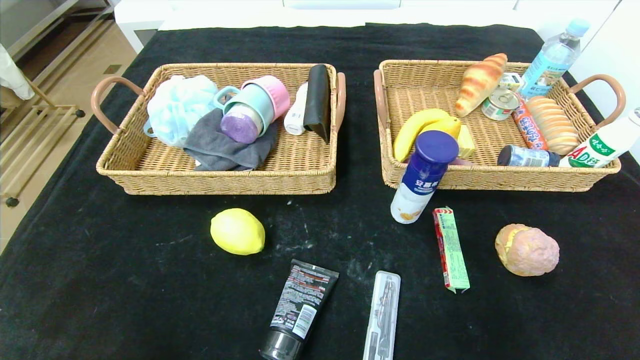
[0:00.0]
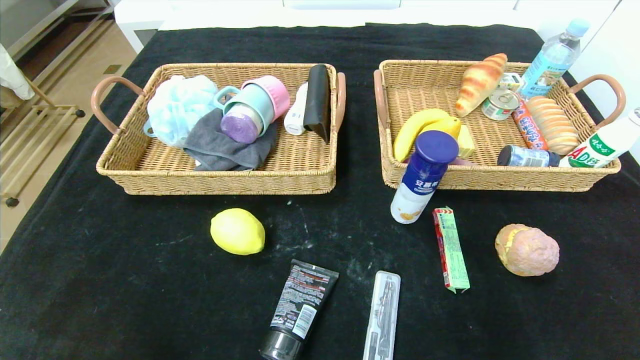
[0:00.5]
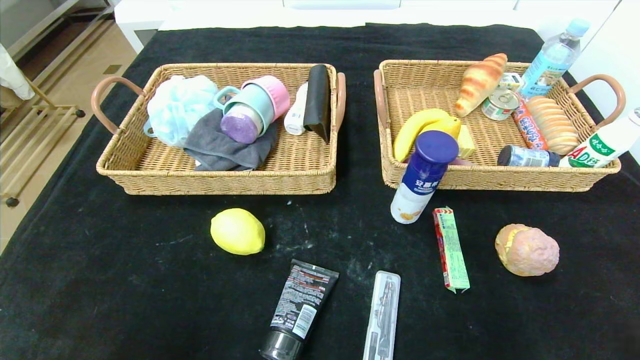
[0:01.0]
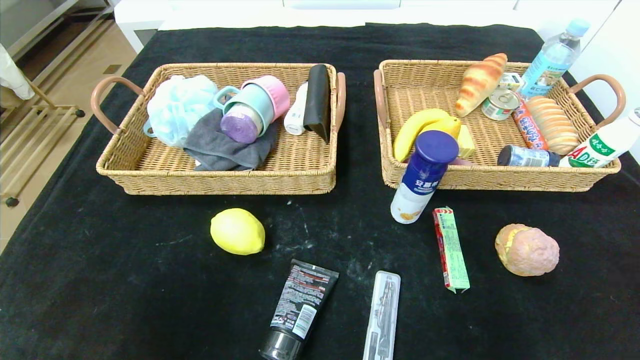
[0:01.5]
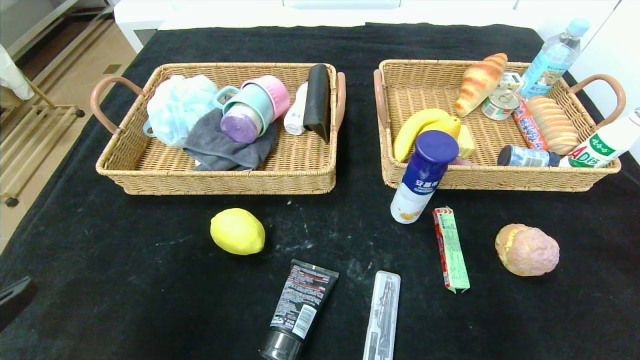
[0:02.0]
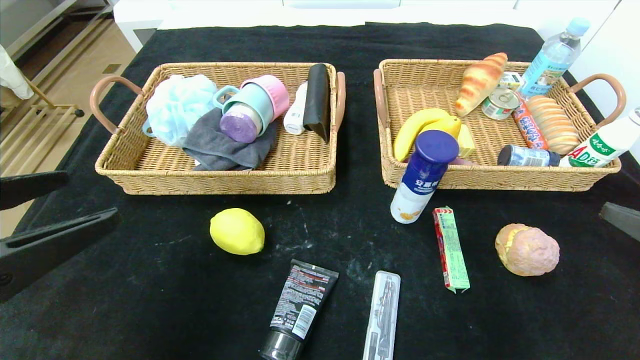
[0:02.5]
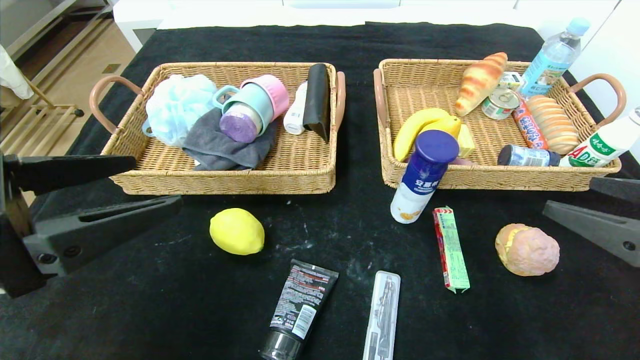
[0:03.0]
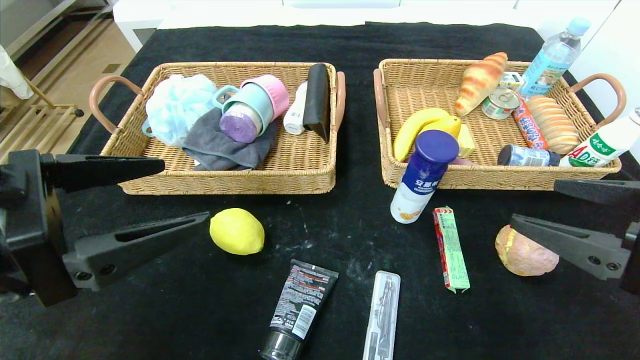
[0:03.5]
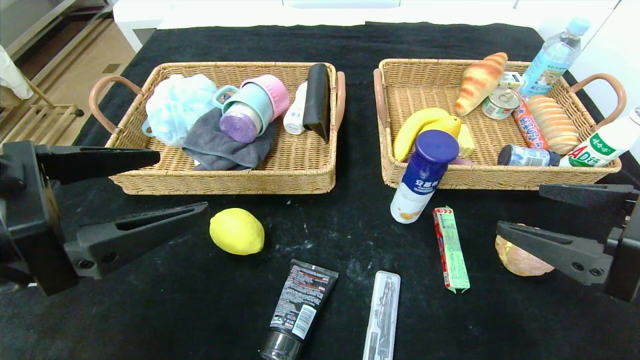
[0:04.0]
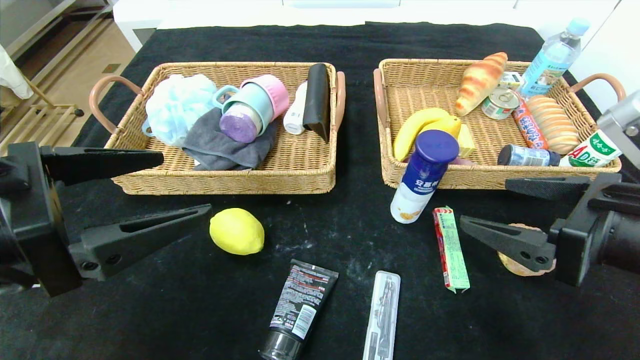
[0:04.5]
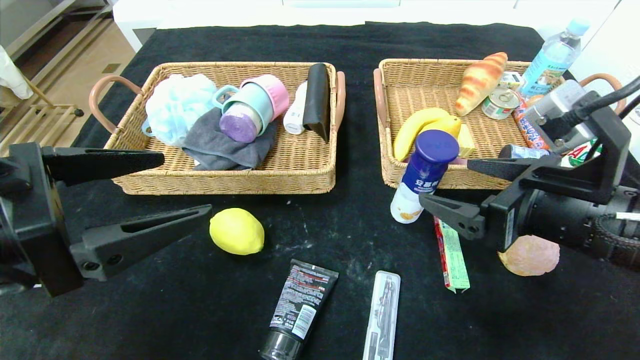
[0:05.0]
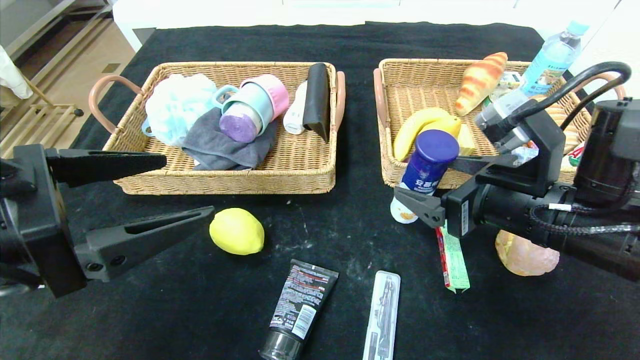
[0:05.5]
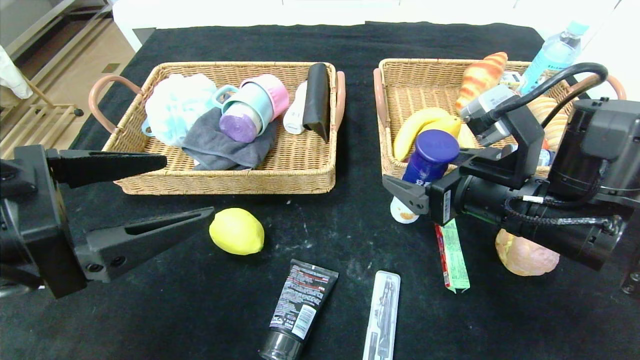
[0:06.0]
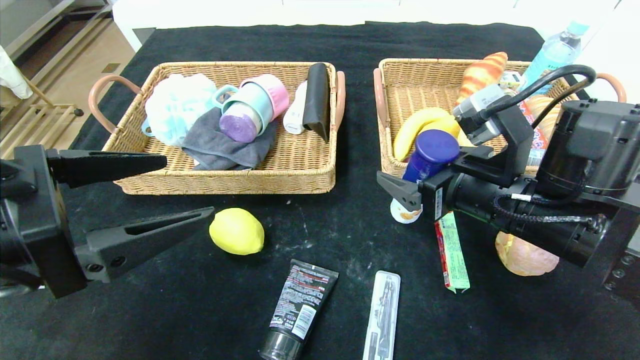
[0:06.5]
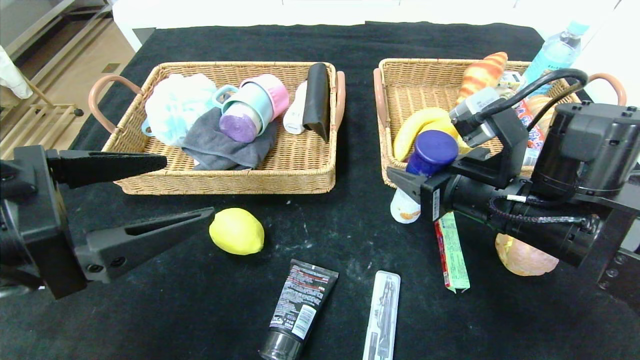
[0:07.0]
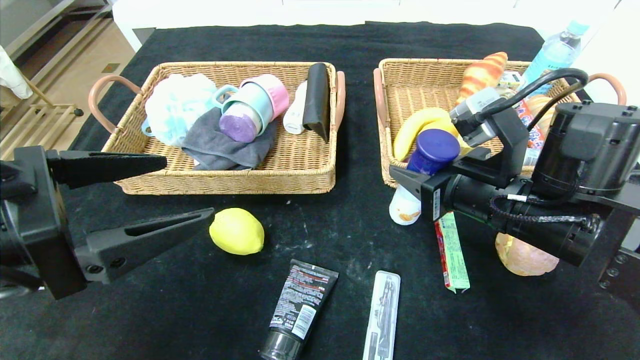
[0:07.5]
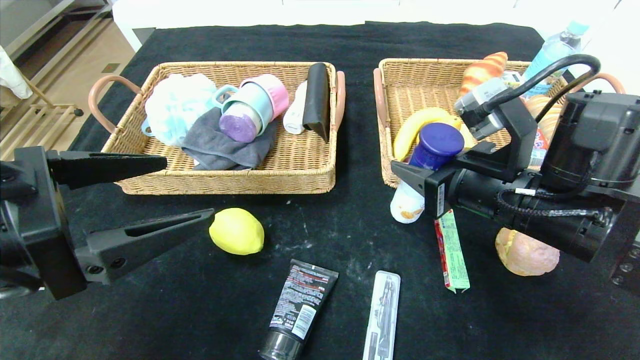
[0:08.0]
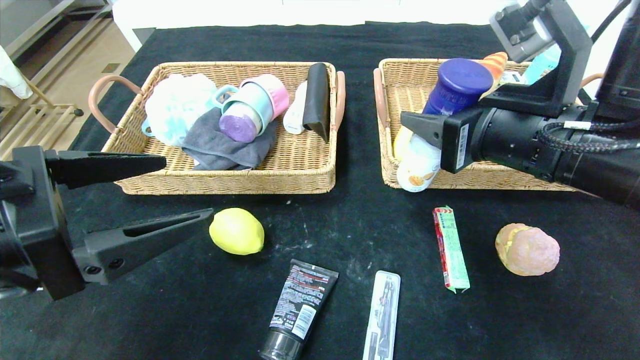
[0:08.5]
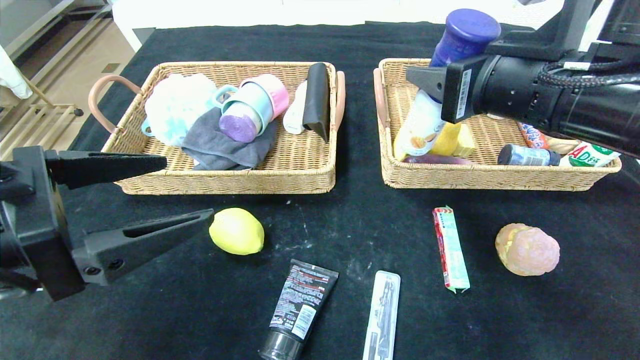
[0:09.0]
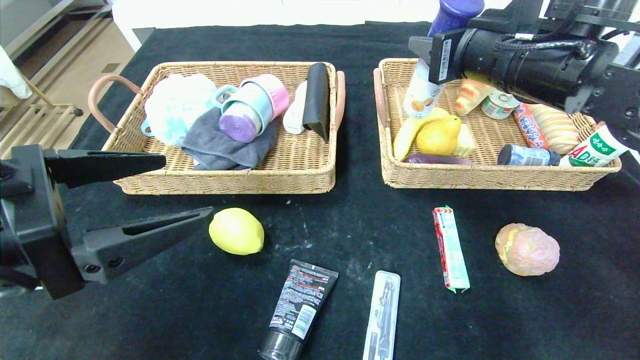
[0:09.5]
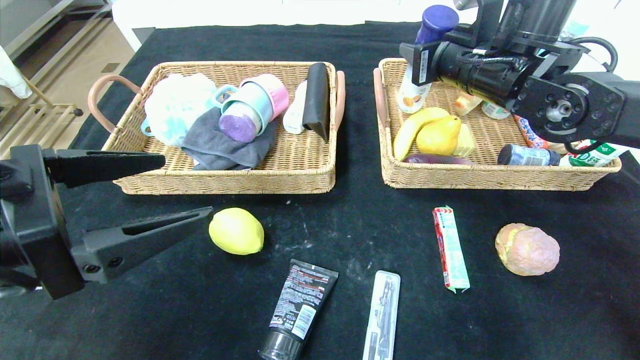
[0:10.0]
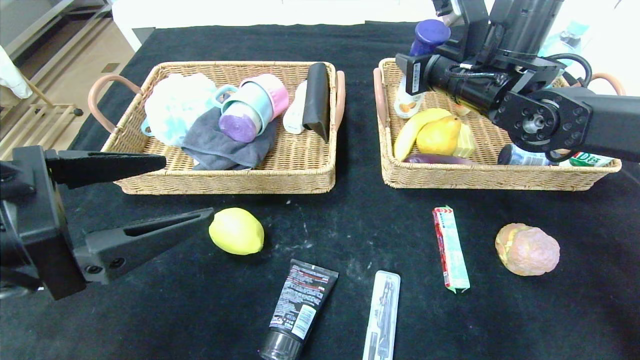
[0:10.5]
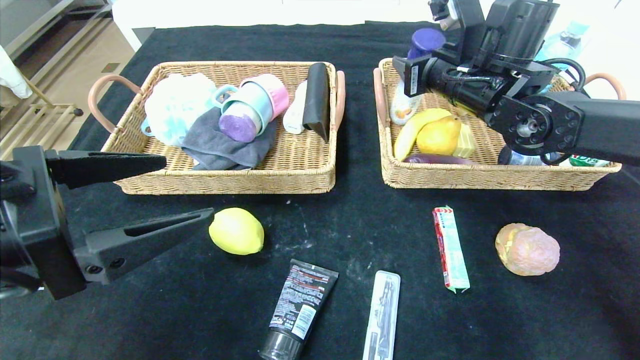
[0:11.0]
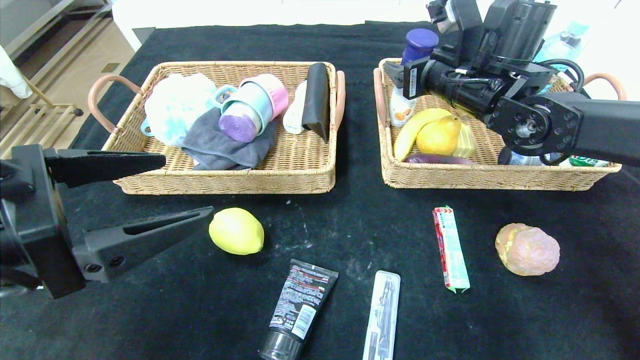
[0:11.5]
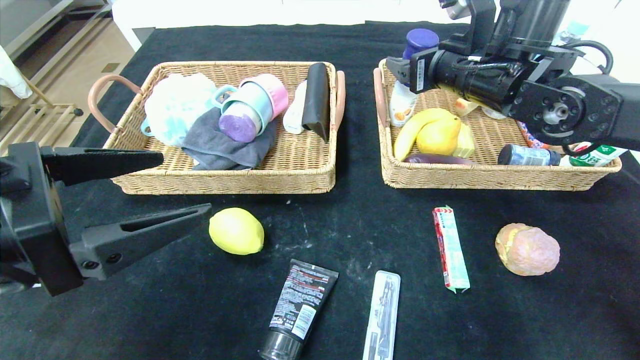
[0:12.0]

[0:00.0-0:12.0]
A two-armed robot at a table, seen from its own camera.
Step, 0:00.0 to 0:11.5: Grasp the yogurt and put it in the right basket.
0:02.0 to 0:04.0: The left gripper moves forward and to the right, roughly 10 cm. The right gripper travels forward and to the left by roughly 15 cm.
0:04.0 to 0:06.0: The right gripper goes some 15 cm forward and to the left.
0:06.0 to 0:08.0: The right gripper closes up.
0:08.0 to 0:10.0: The right gripper travels forward and upward by some 15 cm.
0:10.0 to 0:12.0: The right gripper opens its fingers.

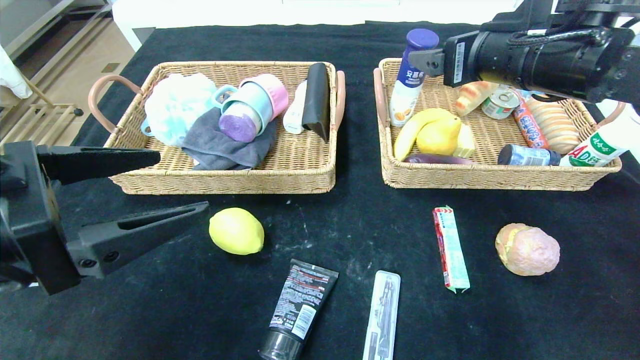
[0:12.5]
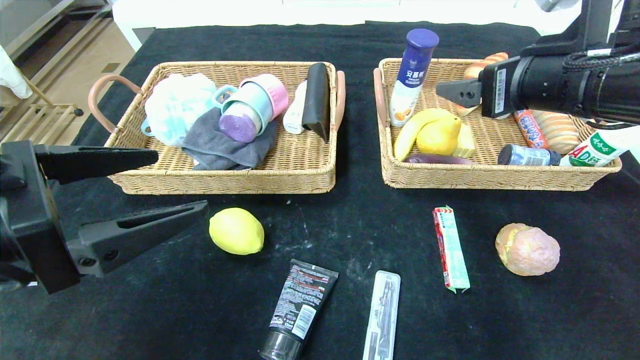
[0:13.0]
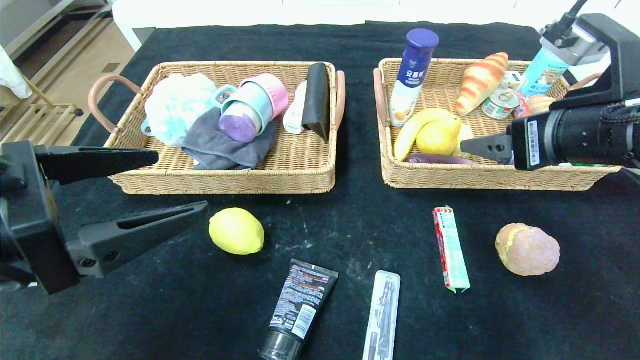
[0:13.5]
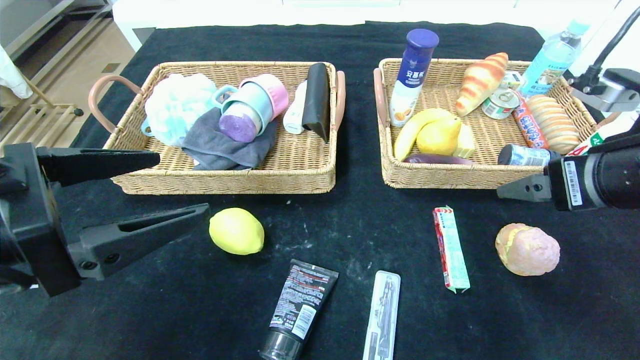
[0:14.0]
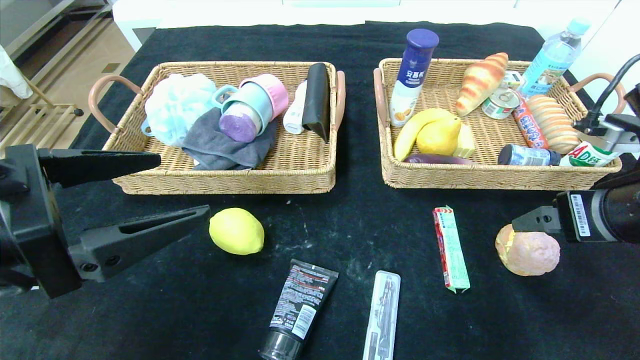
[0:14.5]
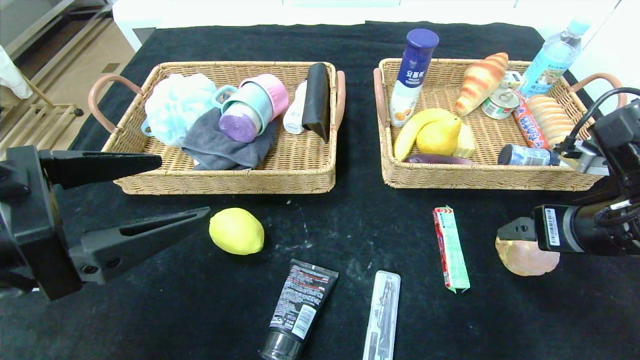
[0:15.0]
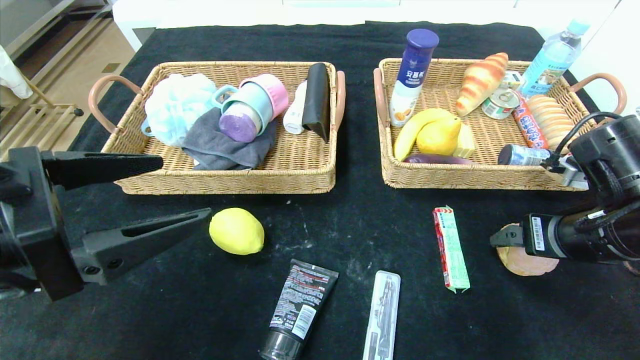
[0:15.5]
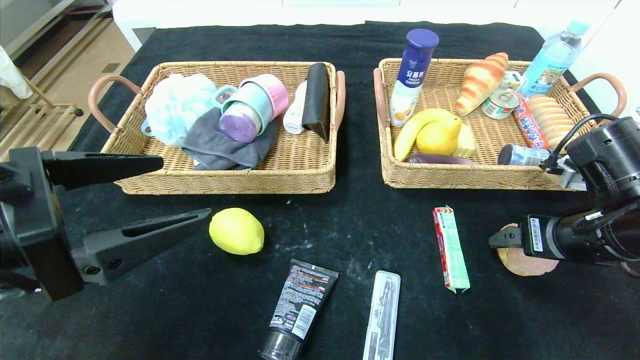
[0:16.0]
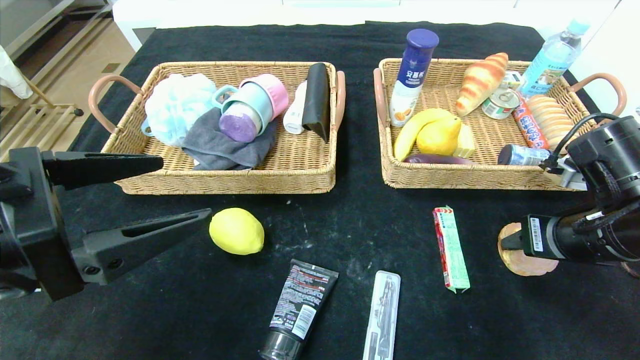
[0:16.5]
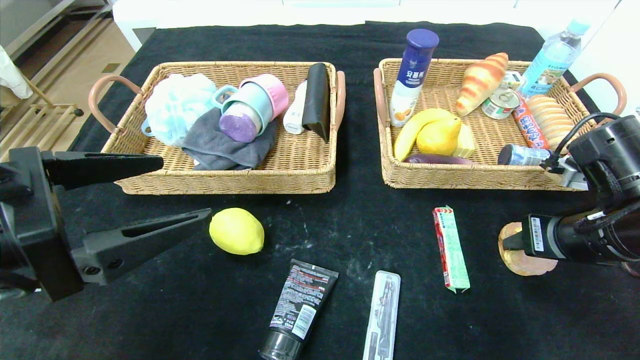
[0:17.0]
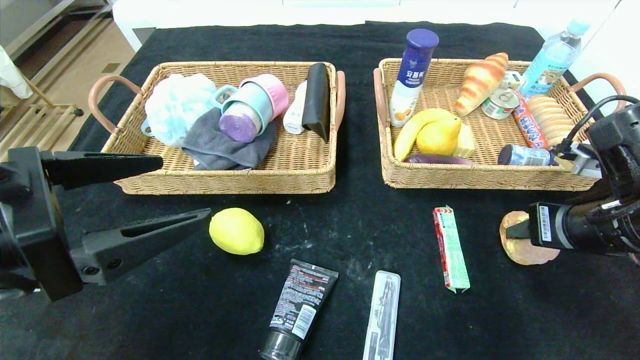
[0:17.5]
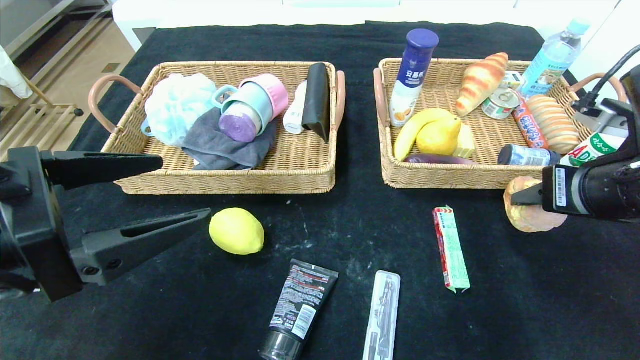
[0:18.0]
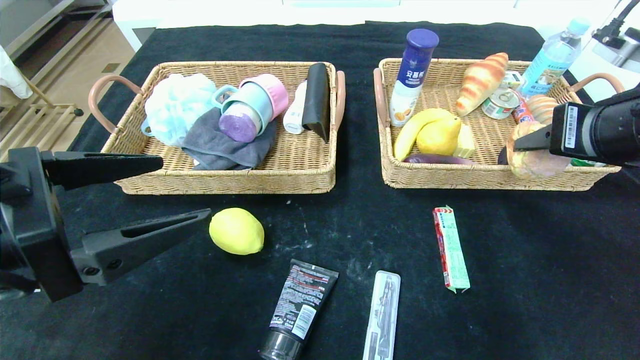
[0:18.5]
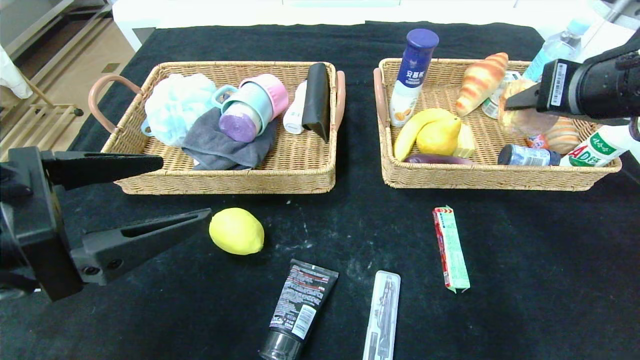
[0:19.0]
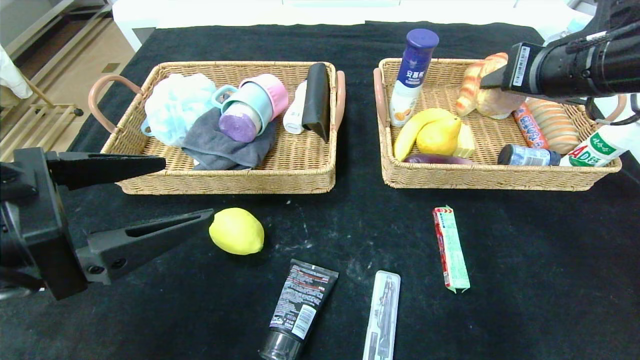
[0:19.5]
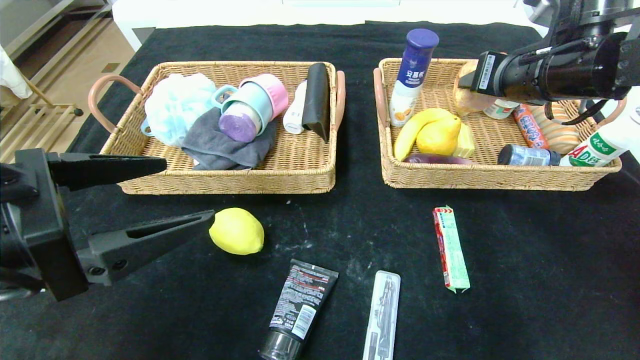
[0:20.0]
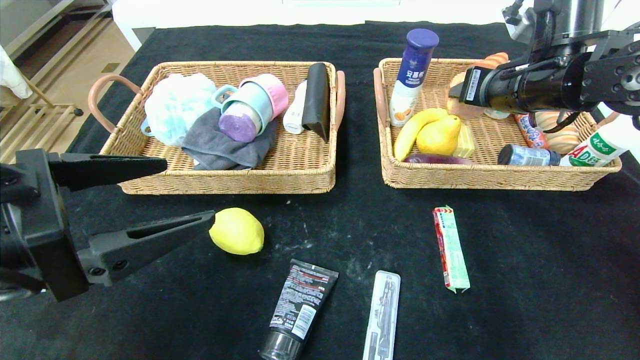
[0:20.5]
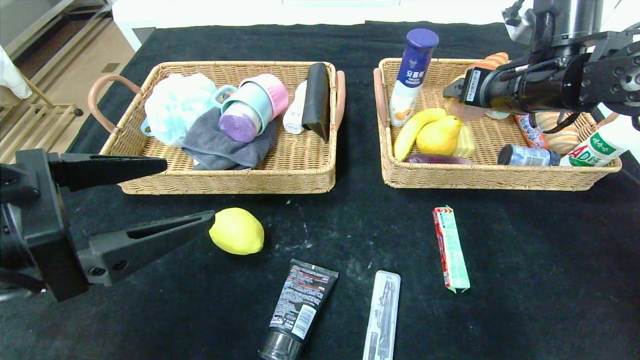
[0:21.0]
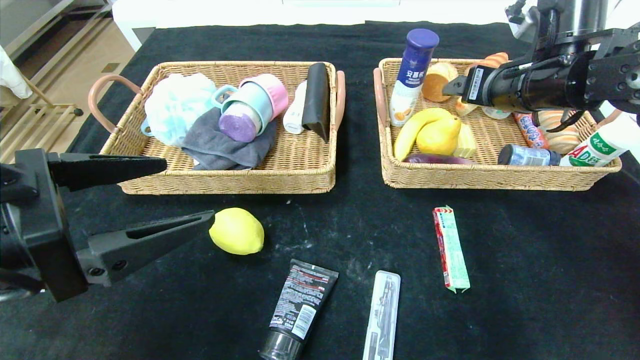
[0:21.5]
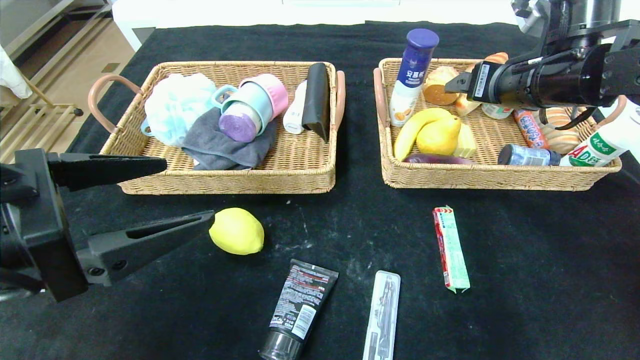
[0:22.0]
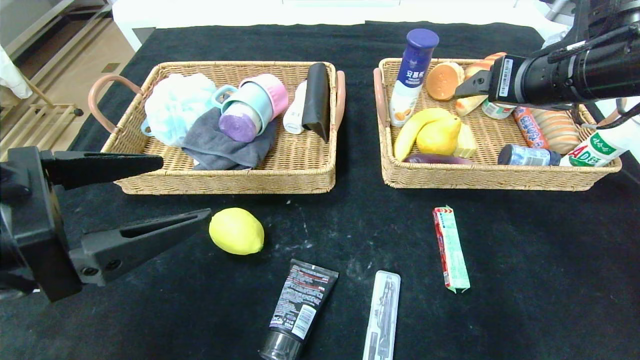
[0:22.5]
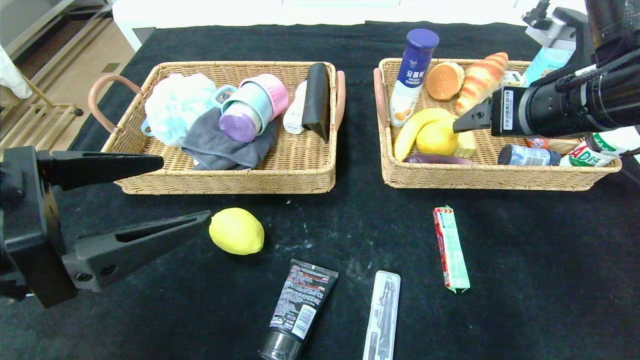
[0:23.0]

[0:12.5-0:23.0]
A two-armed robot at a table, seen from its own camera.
Step, 0:12.5 to 0:21.0: Grasp the round bread and put it in the right basket.
0:12.5 to 0:14.5: The right gripper shifts about 15 cm backward, downward and to the right.
0:14.5 to 0:16.5: The right gripper heads downward, covering approximately 5 cm, and closes.
0:16.5 to 0:19.0: The right gripper moves upward, approximately 15 cm.
0:19.0 to 0:21.0: The right gripper travels forward by about 10 cm, and opens.
0:21.0 to 0:23.0: The right gripper heads backward, covering some 10 cm.
